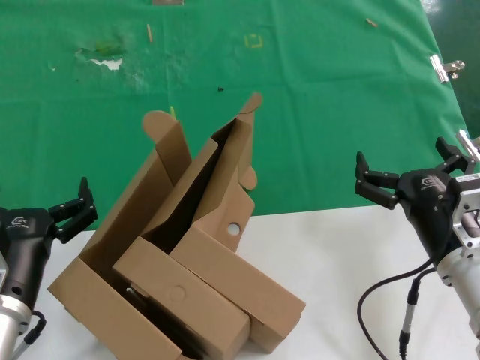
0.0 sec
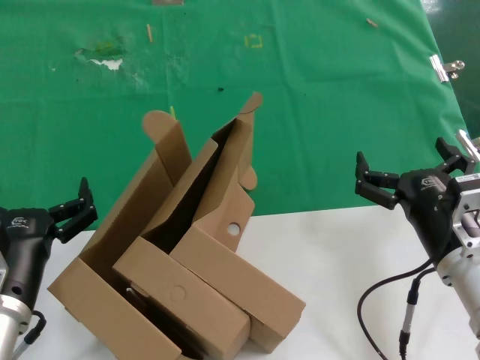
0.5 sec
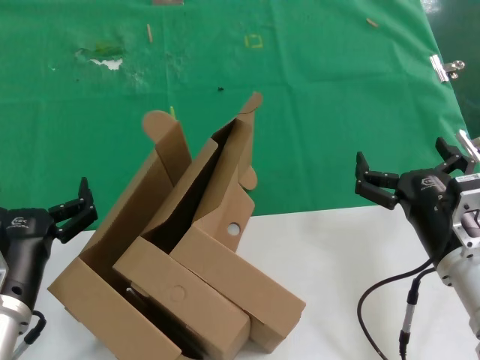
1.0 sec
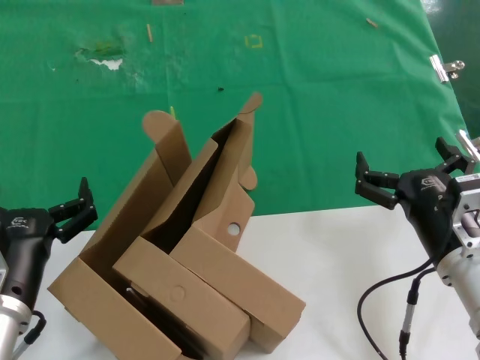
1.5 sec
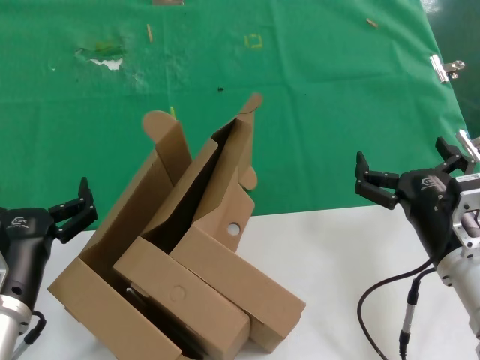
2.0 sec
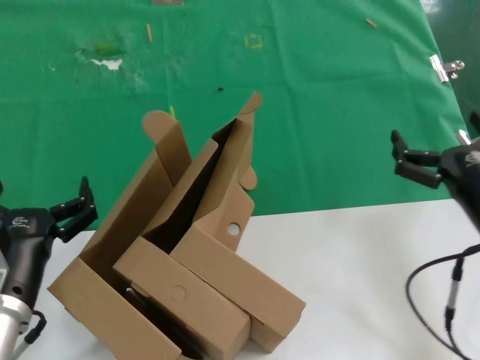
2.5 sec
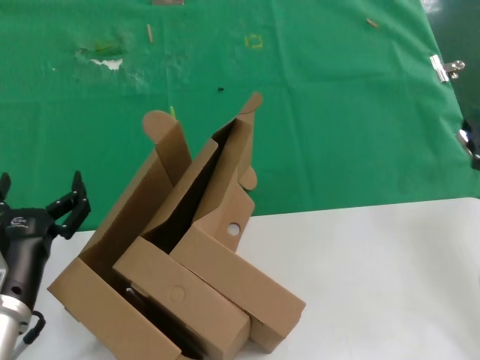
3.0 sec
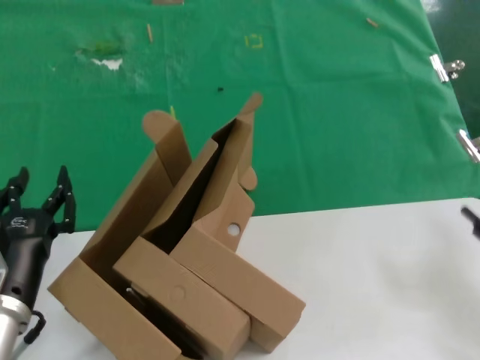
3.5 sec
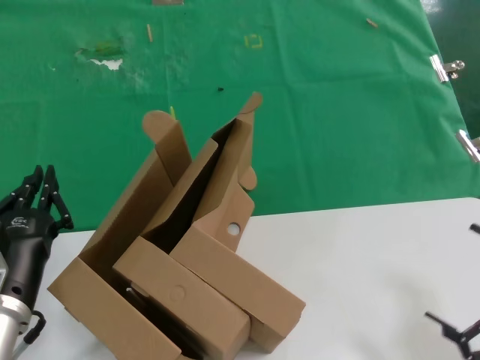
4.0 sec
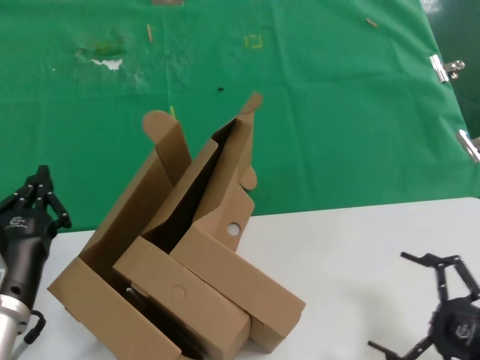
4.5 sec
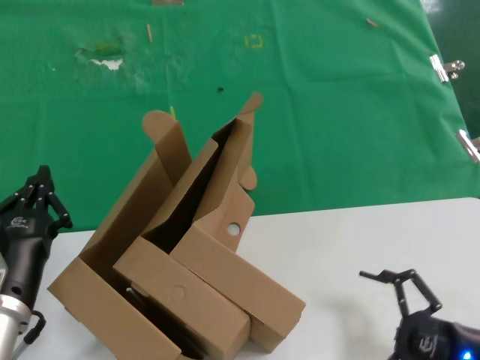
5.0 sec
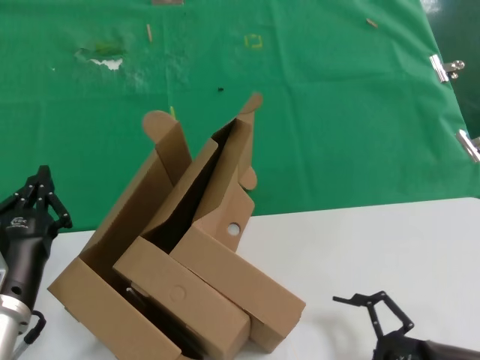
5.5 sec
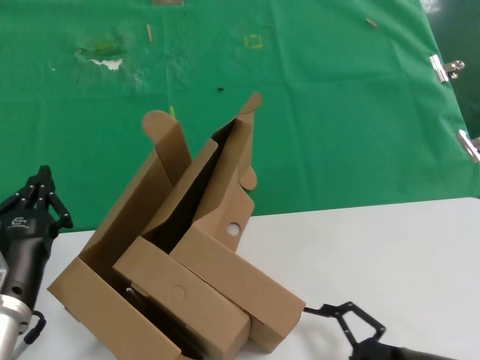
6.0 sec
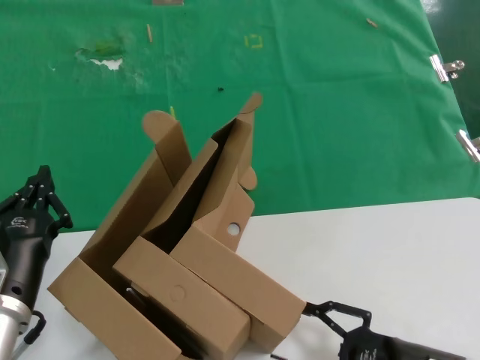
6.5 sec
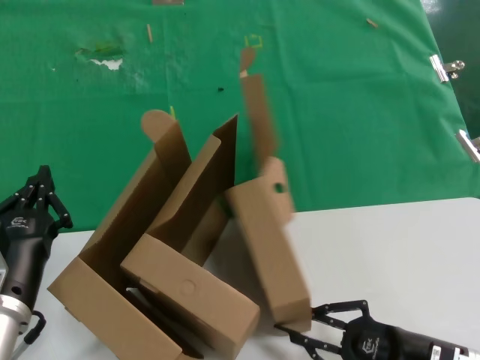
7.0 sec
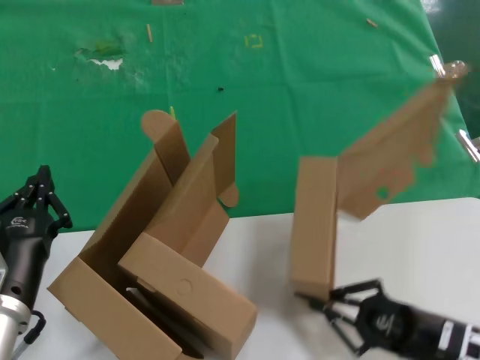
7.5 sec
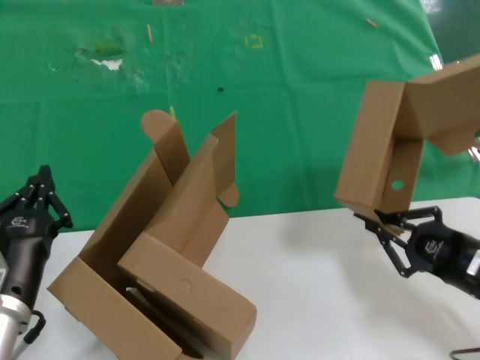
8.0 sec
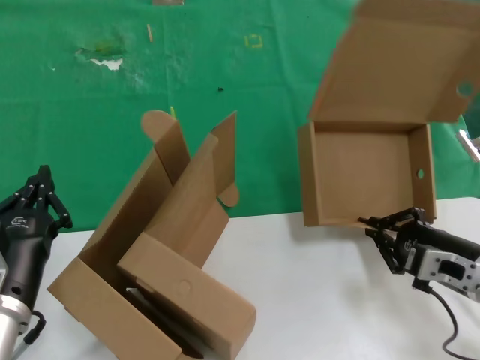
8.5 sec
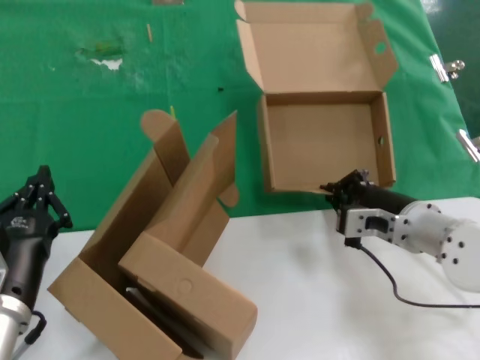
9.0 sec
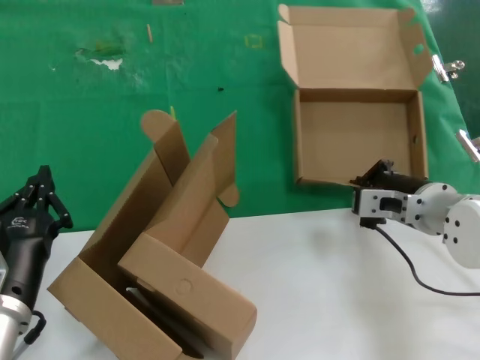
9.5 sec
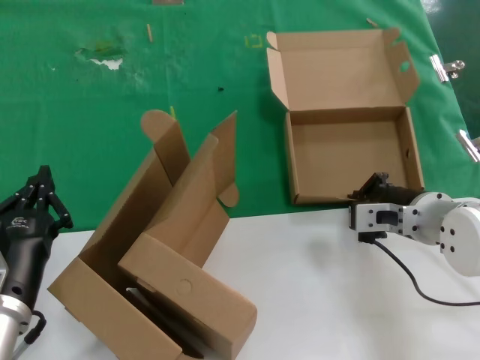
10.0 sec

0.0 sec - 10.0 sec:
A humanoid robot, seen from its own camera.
Task of the whole recording: pick up the paper box and put it at the back.
Step, 0.0 sec - 7.0 sec: Grasp the paper box.
0.0 sec - 2.0 sec: Both hands stay about where they are.
2.0 sec - 4.0 sec: The right hand travels to the right and backward by about 25 cm.
4.0 sec - 6.0 sec: The right hand moves to the left and downward, roughly 15 cm.
6.0 sec - 8.0 sec: The right hand shifts about 10 cm upward and forward.
8.0 sec - 10.0 sec: The right hand is displaced to the left, forward and upward by about 20 cm.

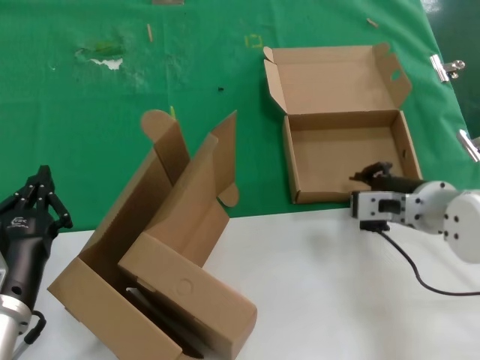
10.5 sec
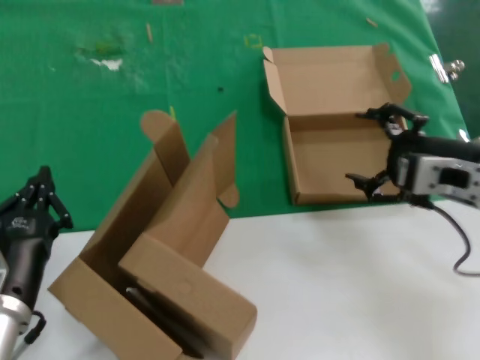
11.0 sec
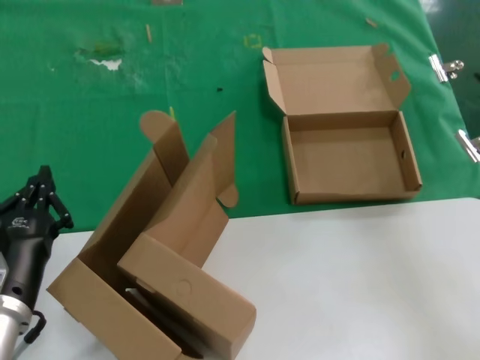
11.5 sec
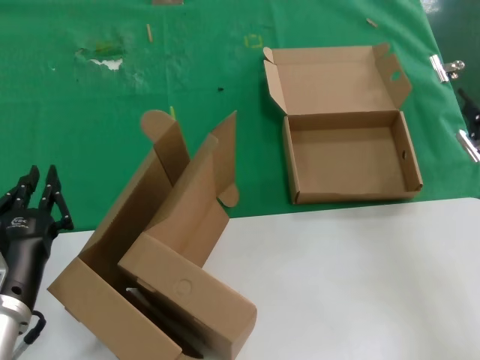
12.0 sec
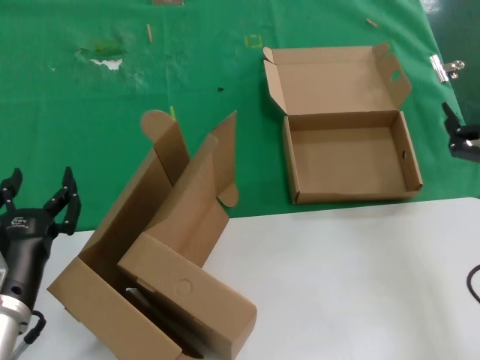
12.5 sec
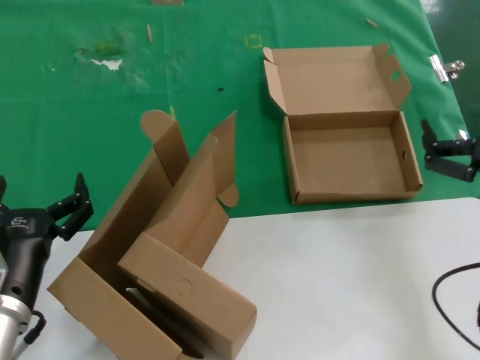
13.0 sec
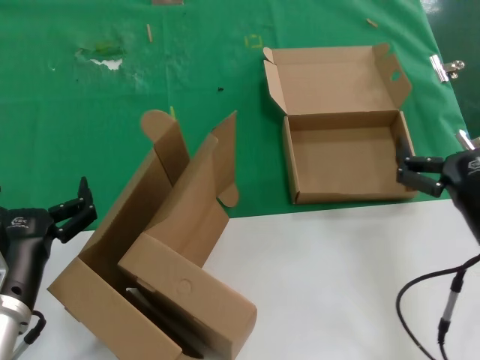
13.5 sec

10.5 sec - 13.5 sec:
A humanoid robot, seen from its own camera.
Task of the whole recording: pick up the paper box and put it at the back.
10.5 sec - 12.0 sec: The right hand travels backward, upward and to the right by about 25 cm.
12.0 sec - 13.5 sec: The right hand heads downward and to the left, covering approximately 15 cm.
